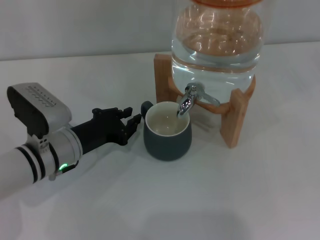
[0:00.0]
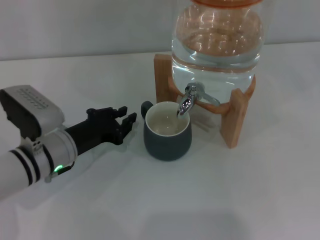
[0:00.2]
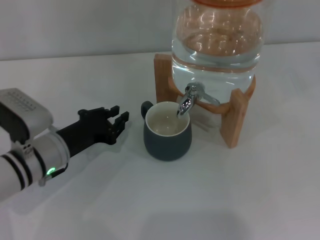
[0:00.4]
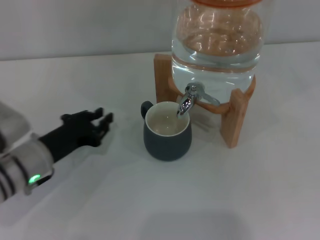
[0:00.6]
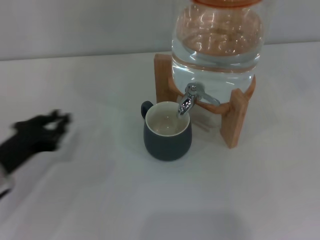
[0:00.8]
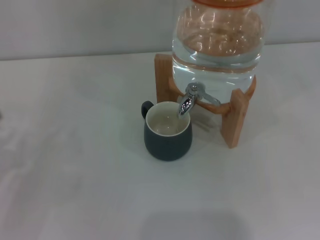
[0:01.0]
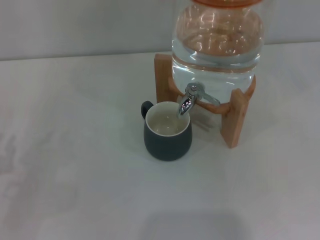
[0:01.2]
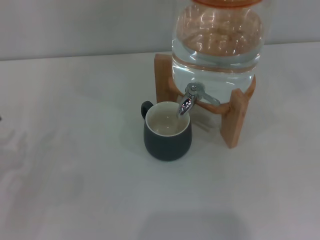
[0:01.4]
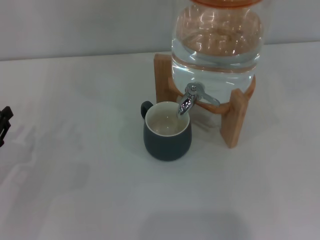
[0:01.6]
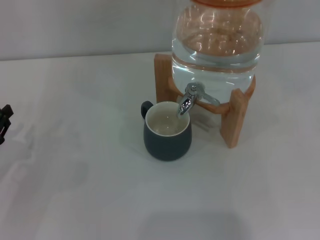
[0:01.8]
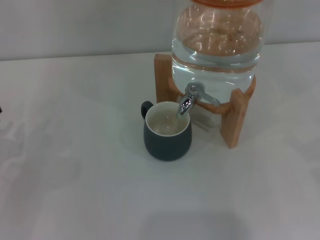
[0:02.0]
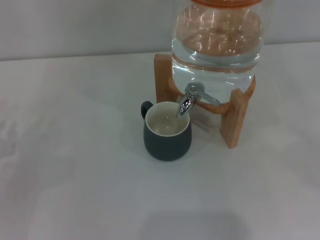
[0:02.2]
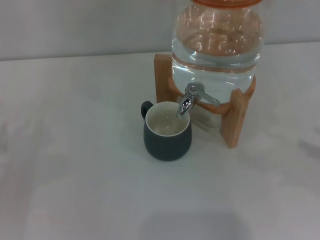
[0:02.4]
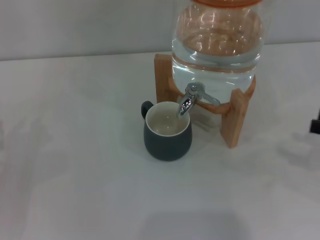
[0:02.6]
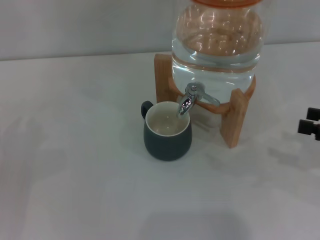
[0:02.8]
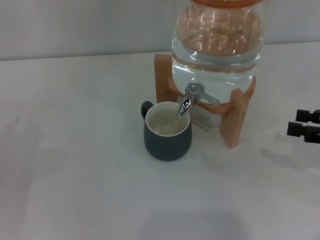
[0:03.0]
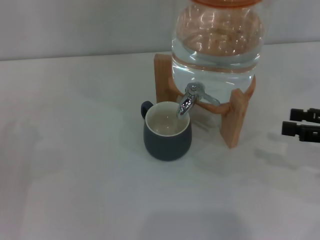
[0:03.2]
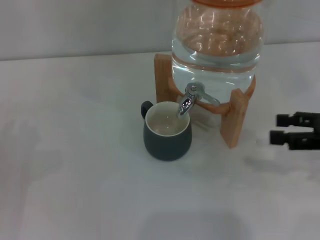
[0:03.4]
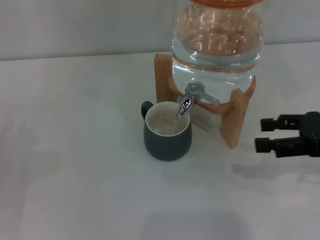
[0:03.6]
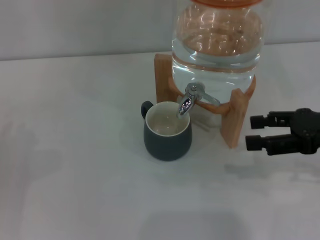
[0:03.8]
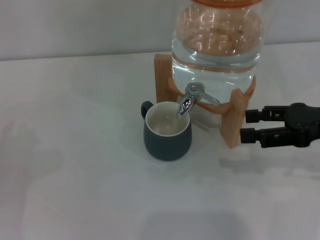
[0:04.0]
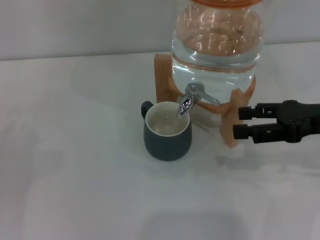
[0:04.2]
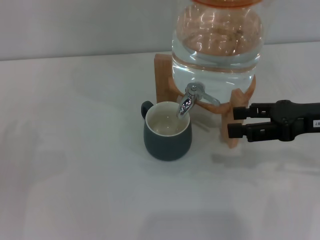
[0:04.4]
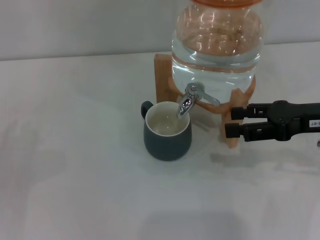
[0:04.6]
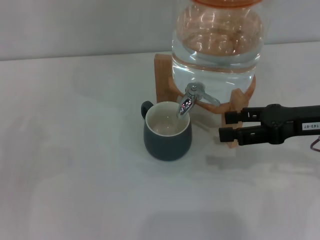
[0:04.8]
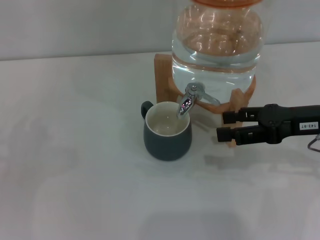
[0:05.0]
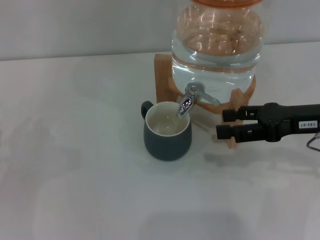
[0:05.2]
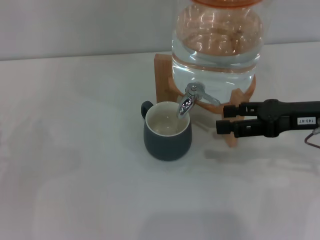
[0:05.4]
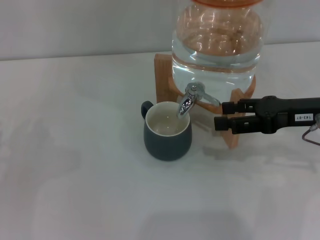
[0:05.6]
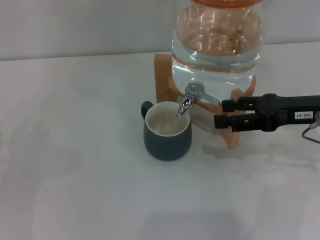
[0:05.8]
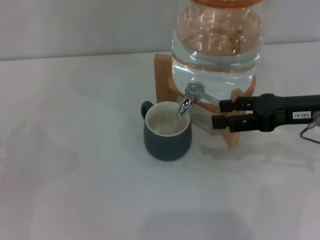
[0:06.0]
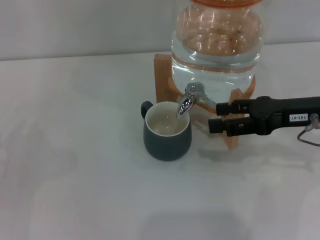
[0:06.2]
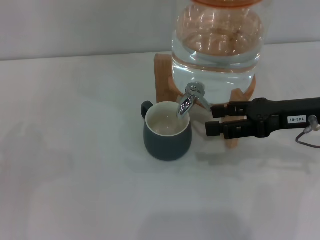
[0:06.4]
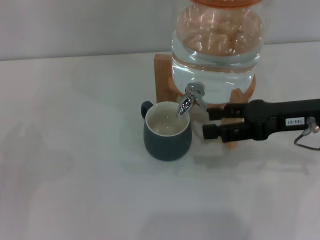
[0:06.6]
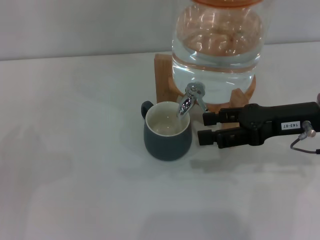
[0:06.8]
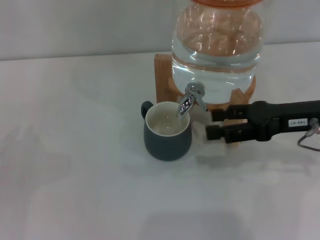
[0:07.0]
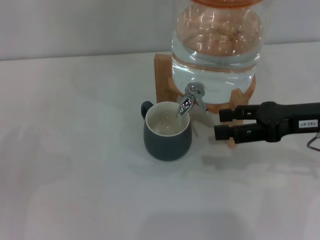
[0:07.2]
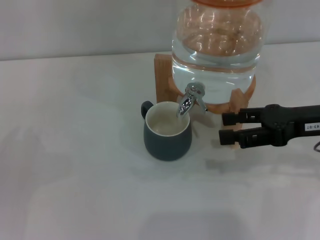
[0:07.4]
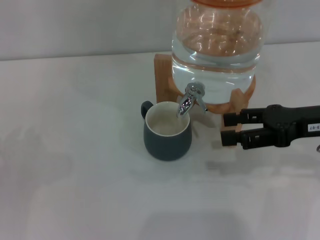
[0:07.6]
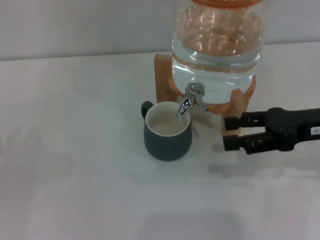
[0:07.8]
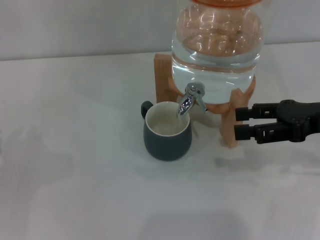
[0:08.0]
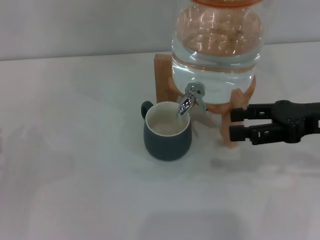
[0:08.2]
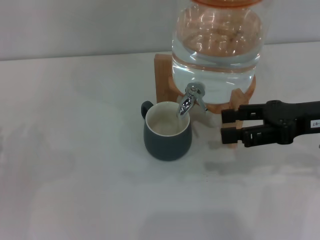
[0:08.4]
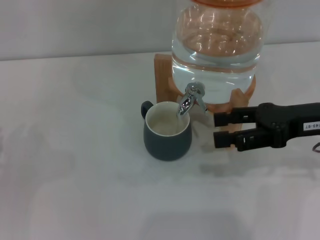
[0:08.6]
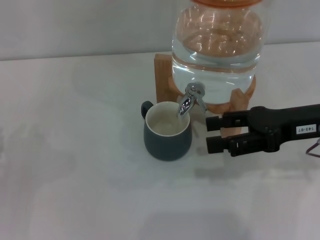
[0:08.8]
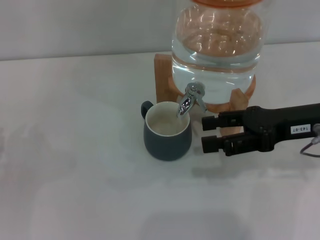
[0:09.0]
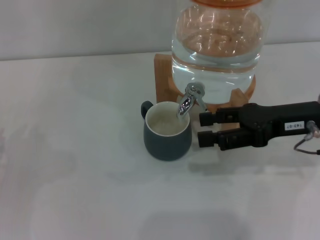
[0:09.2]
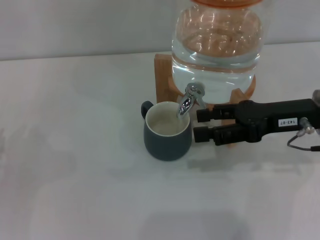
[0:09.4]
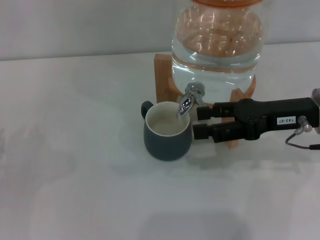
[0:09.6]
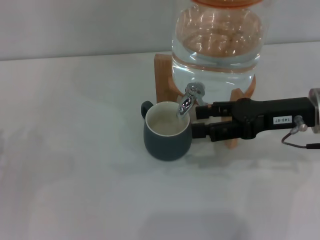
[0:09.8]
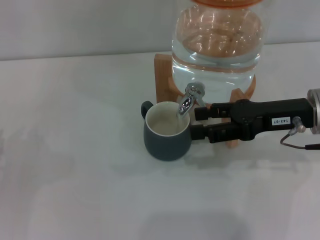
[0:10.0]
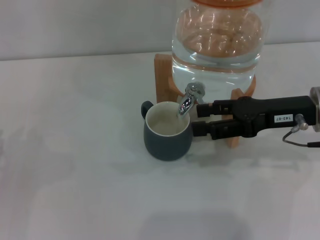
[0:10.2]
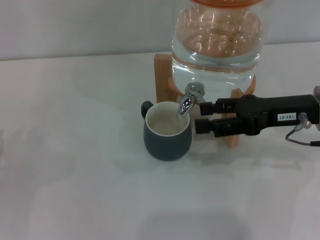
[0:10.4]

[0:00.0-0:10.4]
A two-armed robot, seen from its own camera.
Task of the whole recording: the left gripper pick up the black cup and place it horizontally under the faucet, the right gripper turn on the faucet to fill the cup, and then turn off the faucet.
Step, 0:00.6 to 0:08.4: Open the dispenser valve and fill the cup with water with the right gripper.
0:00.0 to 0:01.4: The left gripper is displaced to the left and backward by some 20 cm.
0:01.4 to 0:03.0: The right gripper moves to the left, some 15 cm.
0:03.0 to 0:04.4: The right gripper heads to the left, covering approximately 10 cm.
0:04.4 to 0:10.4: The grippers stay close to where they were, moving slightly.

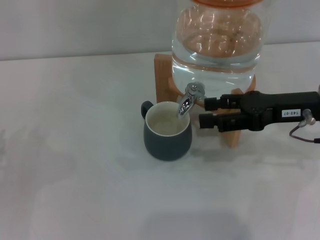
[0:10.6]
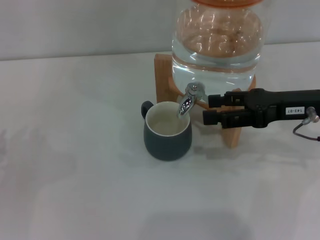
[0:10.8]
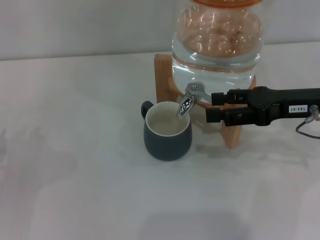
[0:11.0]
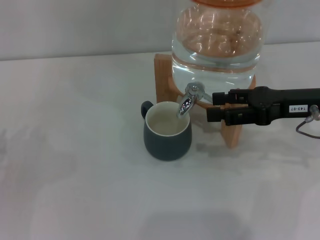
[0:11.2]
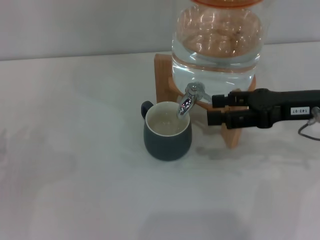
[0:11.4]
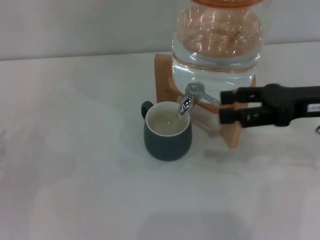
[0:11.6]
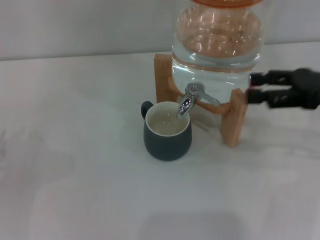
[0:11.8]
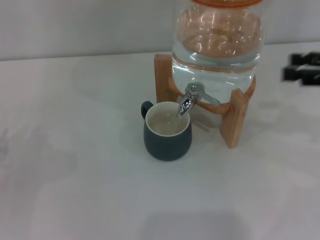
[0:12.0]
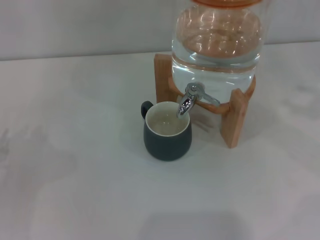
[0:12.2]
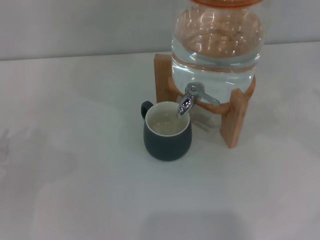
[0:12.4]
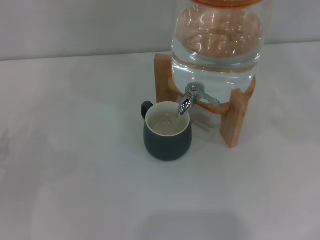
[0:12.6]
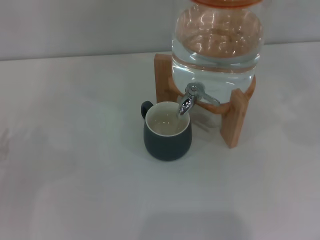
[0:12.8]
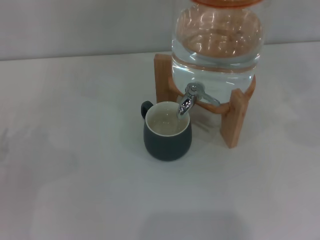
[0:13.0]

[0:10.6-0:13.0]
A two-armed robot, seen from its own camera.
Task of the whole recording: the left gripper pick up the black cup and place it horizontally under the faucet, the right gripper turn on the faucet to fill the cup, and then turn off the faucet.
0:10.6 to 0:11.8: The right gripper goes some 5 cm to the right.
0:11.8 to 0:13.0: The right gripper goes about 20 cm to the right.
